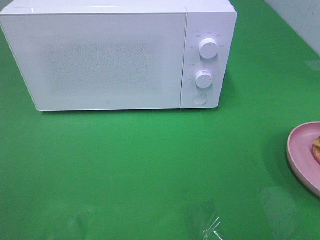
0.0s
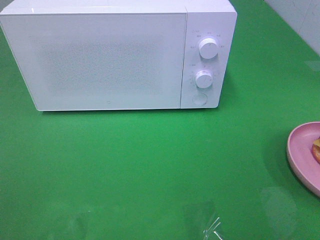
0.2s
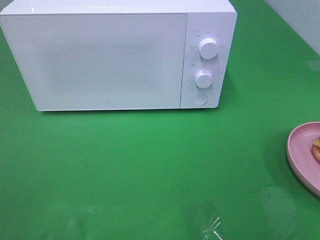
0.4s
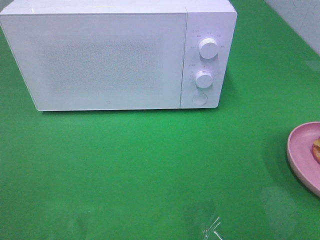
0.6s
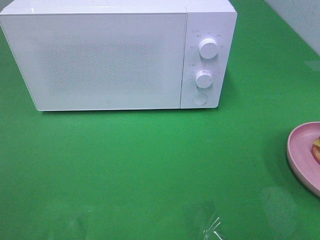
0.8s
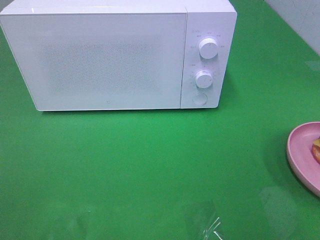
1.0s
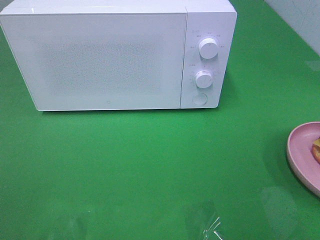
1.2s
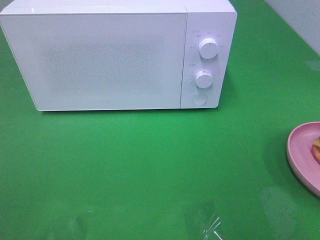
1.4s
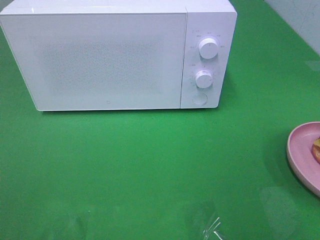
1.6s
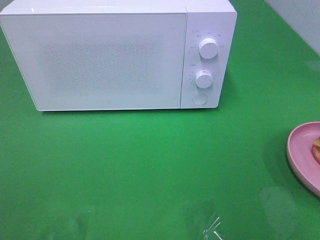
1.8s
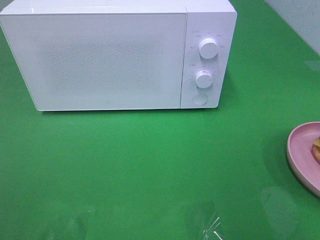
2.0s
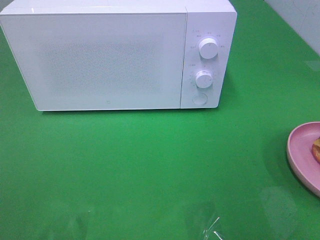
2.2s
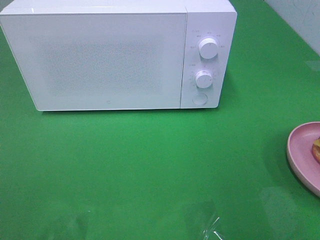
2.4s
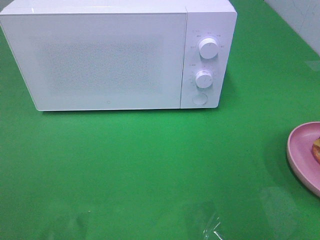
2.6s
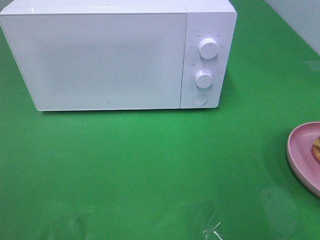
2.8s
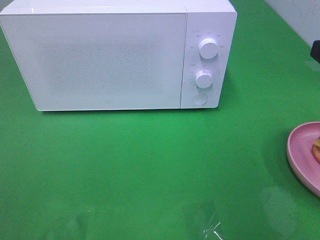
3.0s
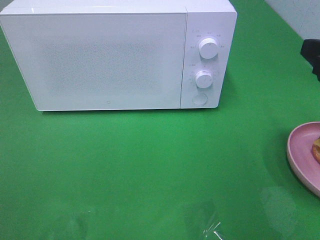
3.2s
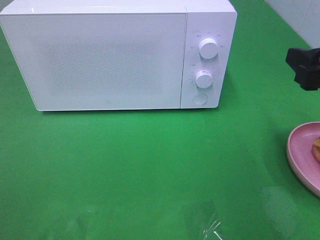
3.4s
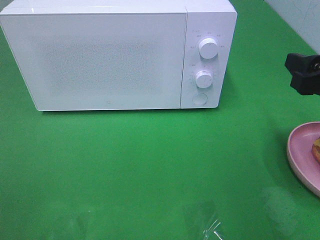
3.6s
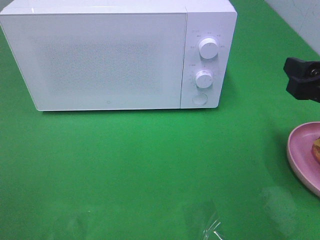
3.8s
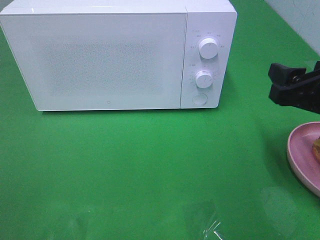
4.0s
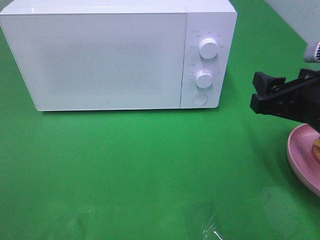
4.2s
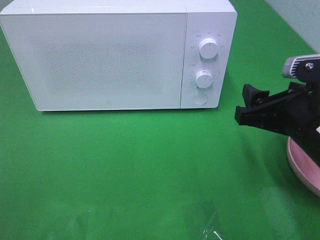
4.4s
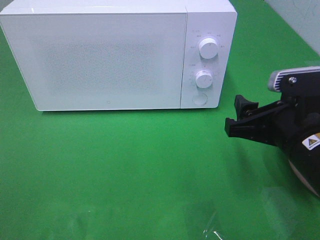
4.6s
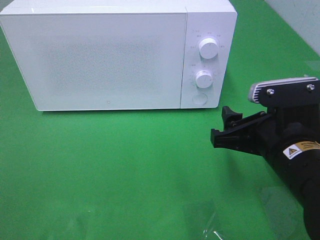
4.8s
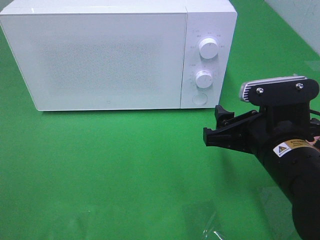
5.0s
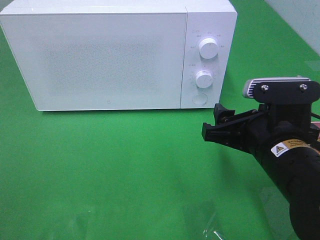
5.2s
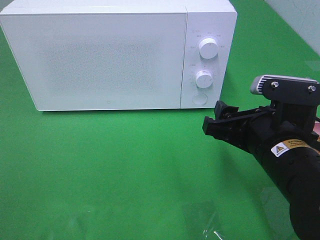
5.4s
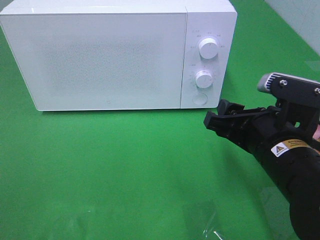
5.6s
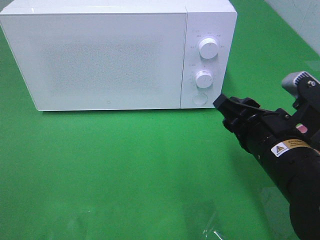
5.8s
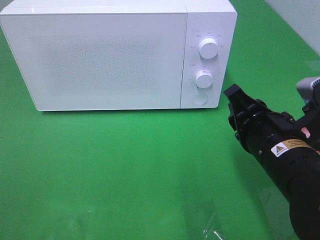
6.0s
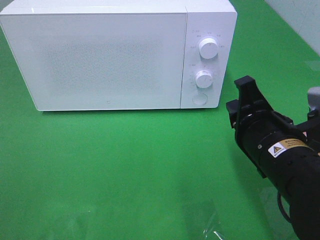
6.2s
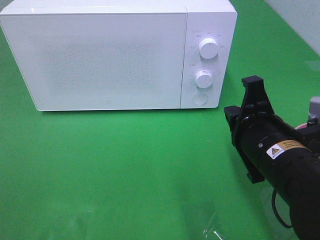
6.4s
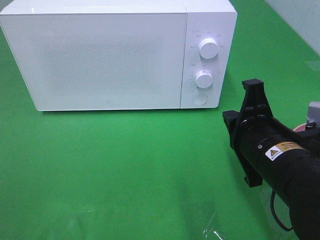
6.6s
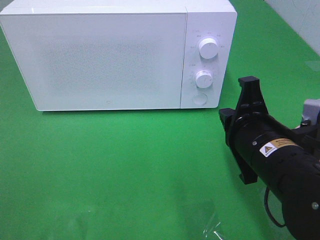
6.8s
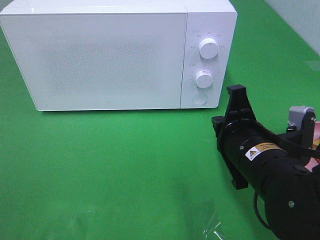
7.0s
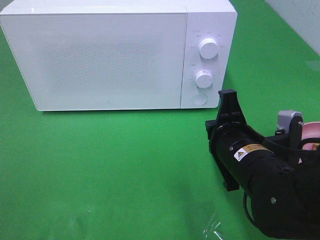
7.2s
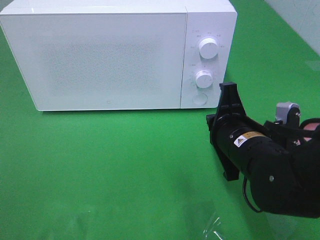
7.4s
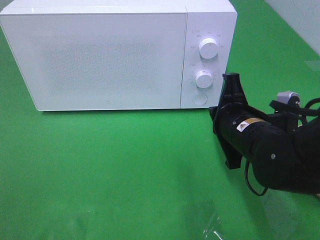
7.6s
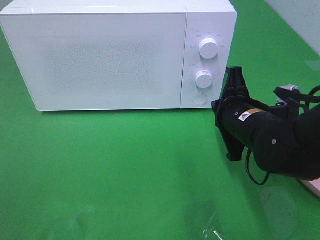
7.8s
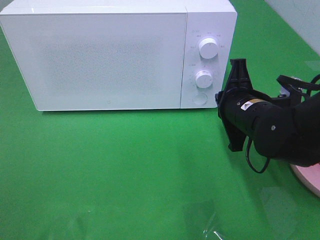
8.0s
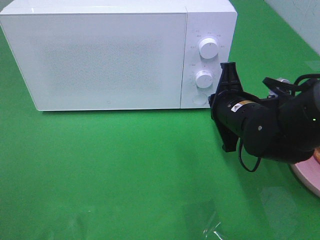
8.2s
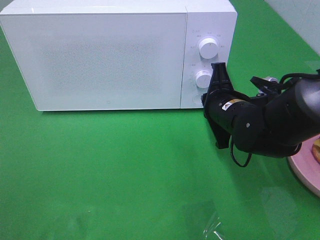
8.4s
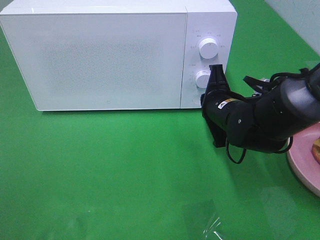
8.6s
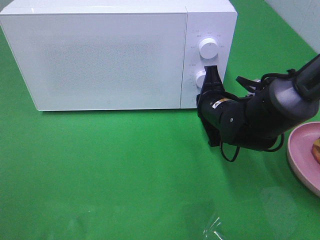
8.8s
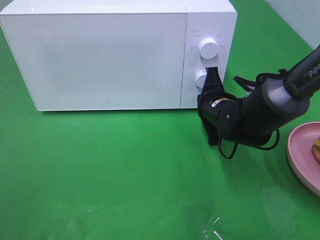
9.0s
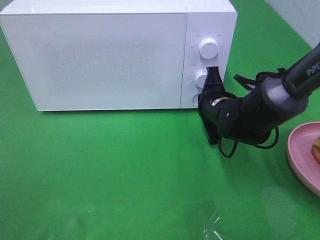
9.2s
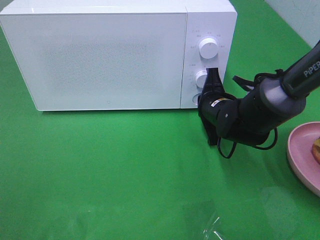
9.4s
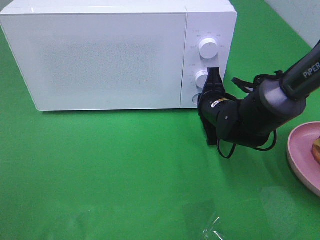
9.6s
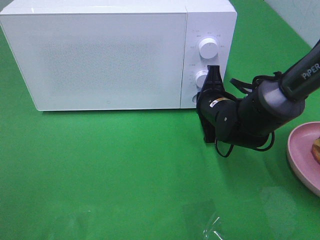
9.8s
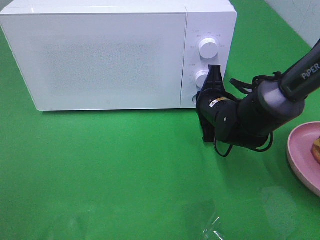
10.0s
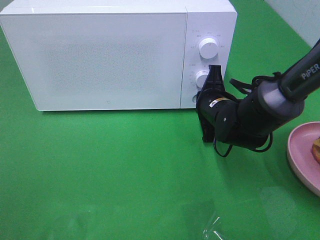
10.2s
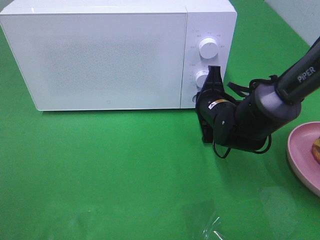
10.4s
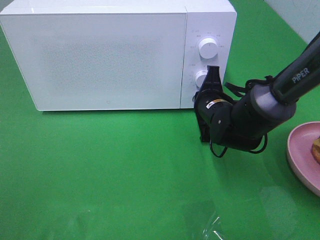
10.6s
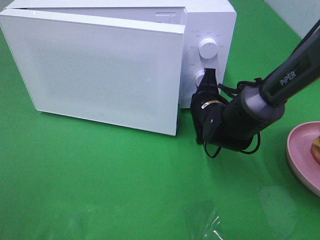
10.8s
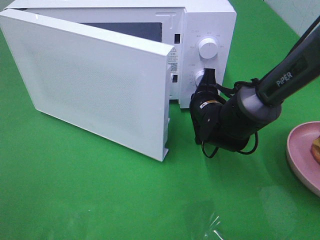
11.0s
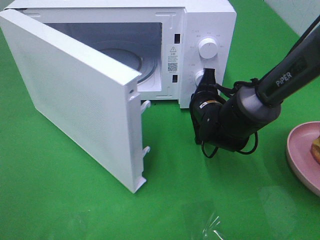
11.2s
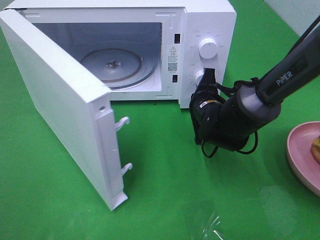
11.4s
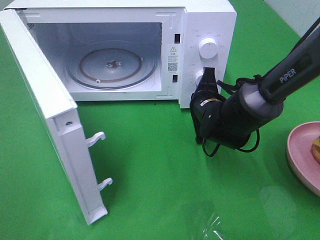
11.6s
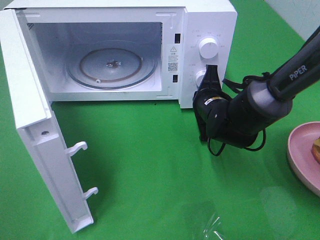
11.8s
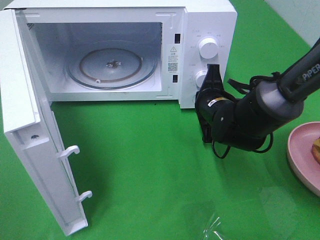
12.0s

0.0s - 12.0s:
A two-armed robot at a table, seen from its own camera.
Task of the whole recording: Heat the burger.
1.6s - 3.0s: The right gripper goes roughly 10 cm forward.
3.0s - 4.4s: The right gripper heads downward and to the left, covering some 10 cm.
4.4s - 6.0s: The right gripper ends up roughly 5 cm from where it was, and closes up.
6.0s - 7.6s: The right gripper travels forward by roughly 5 cm, and closes up.
7.6s - 9.0s: The right gripper is displaced forward by approximately 10 cm.
9.0s - 10.4s: The grippers stay close to where they were, moving slightly.

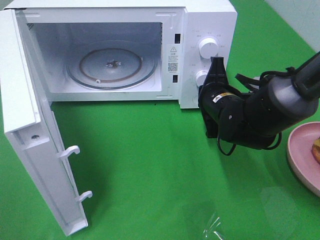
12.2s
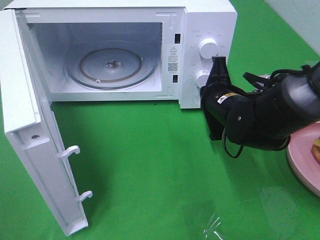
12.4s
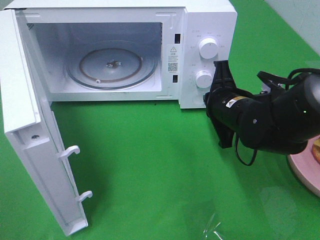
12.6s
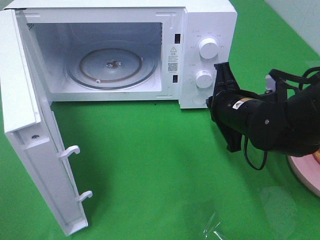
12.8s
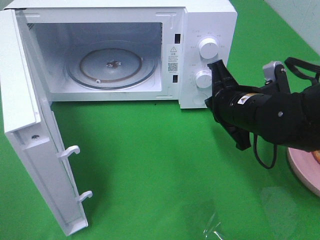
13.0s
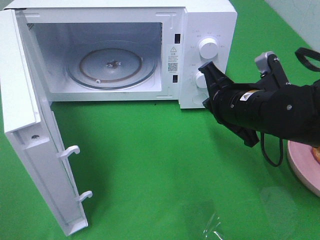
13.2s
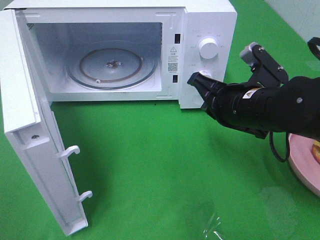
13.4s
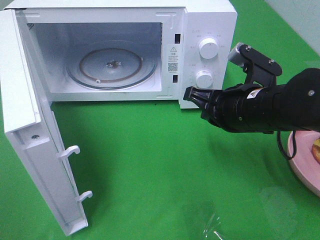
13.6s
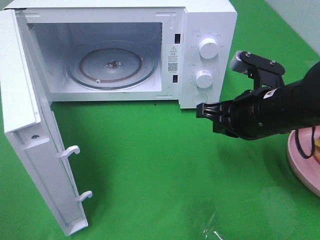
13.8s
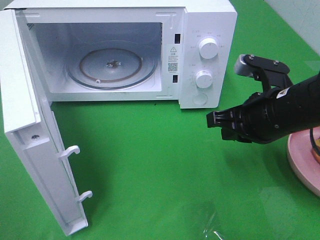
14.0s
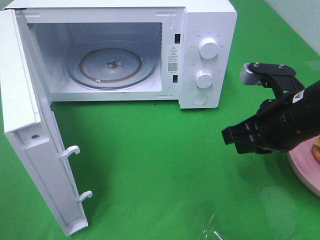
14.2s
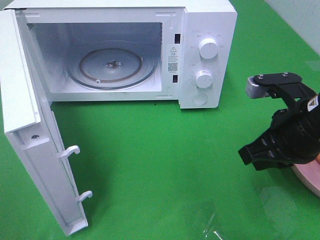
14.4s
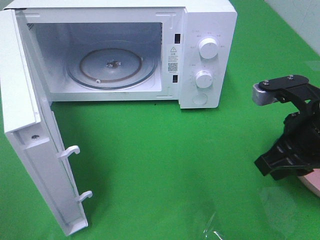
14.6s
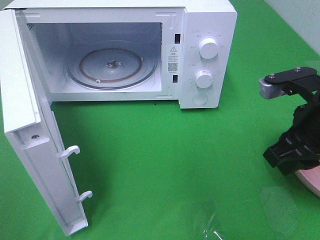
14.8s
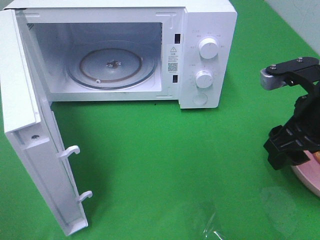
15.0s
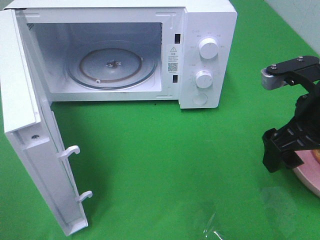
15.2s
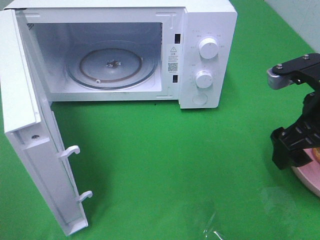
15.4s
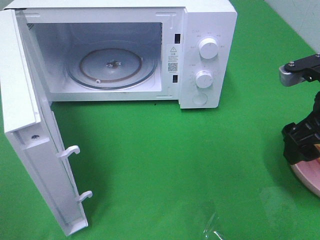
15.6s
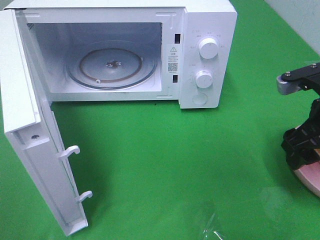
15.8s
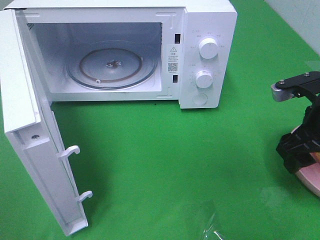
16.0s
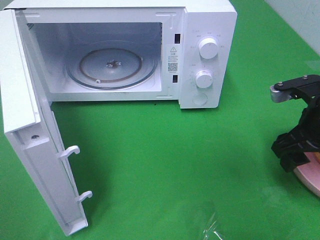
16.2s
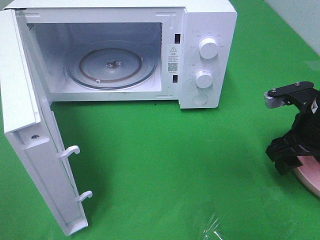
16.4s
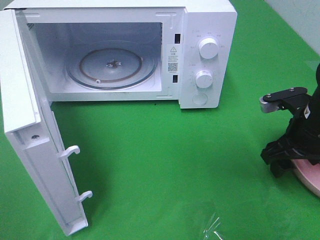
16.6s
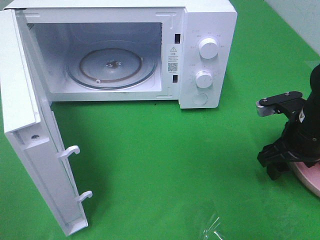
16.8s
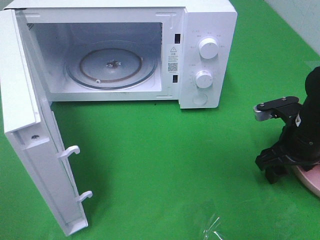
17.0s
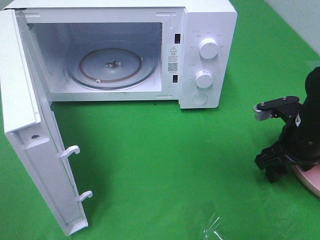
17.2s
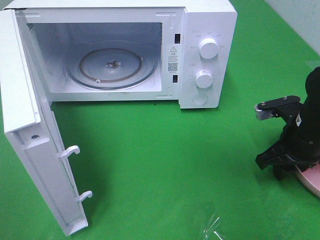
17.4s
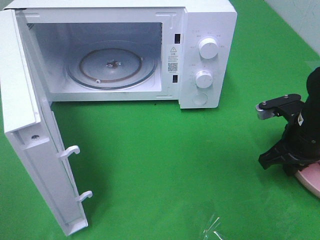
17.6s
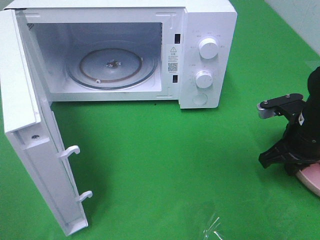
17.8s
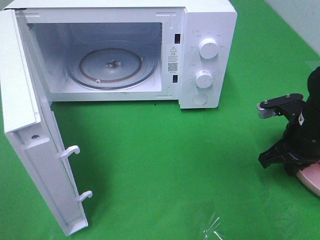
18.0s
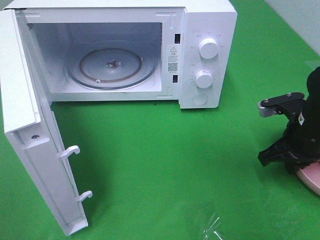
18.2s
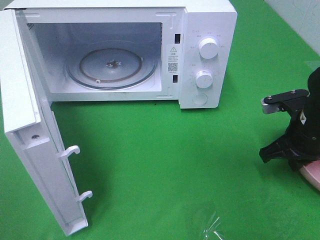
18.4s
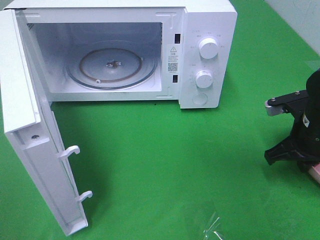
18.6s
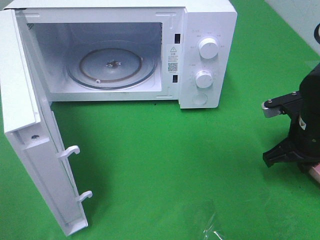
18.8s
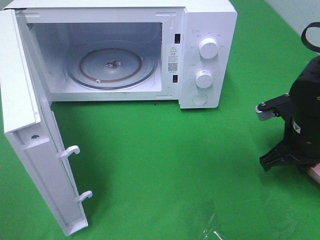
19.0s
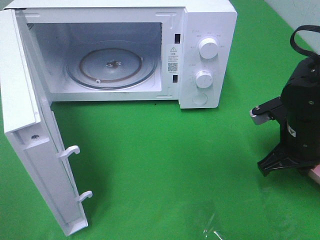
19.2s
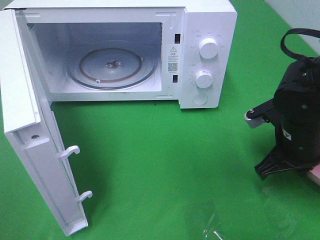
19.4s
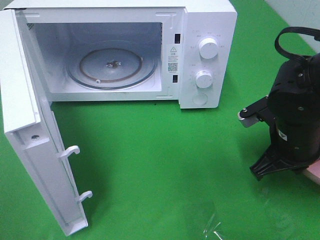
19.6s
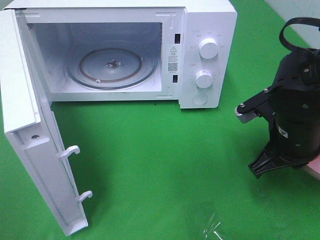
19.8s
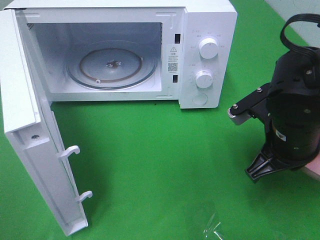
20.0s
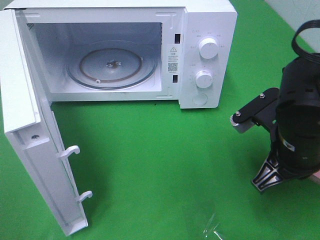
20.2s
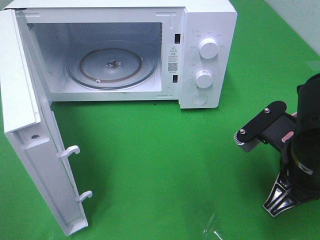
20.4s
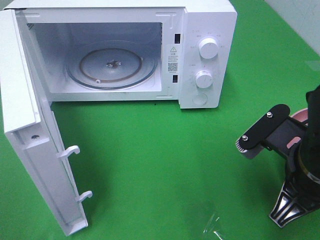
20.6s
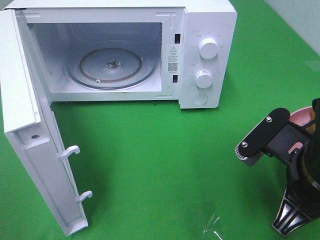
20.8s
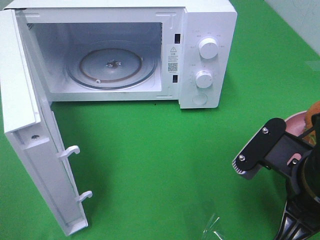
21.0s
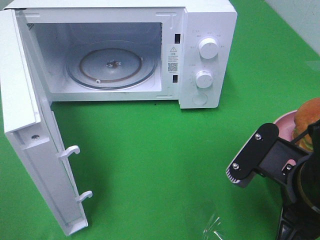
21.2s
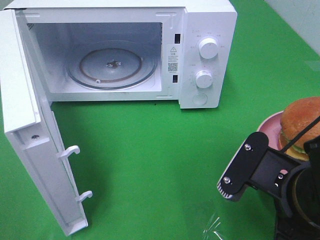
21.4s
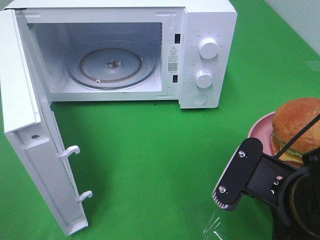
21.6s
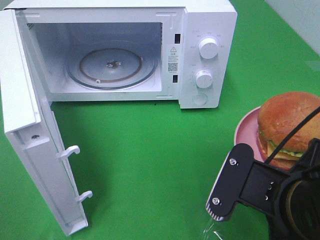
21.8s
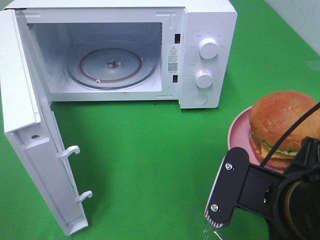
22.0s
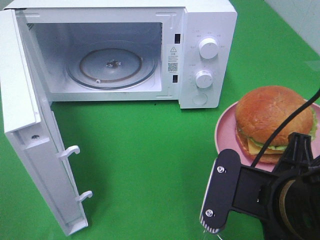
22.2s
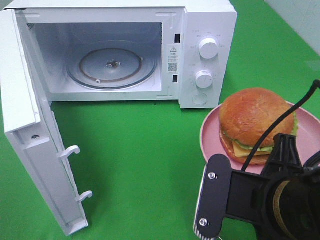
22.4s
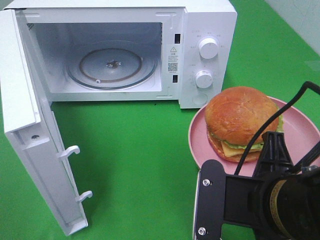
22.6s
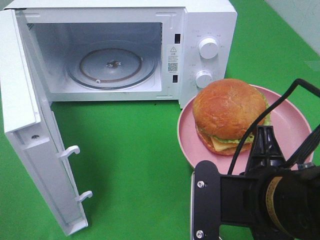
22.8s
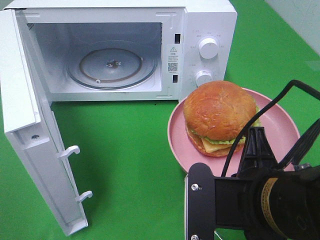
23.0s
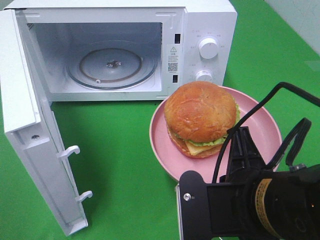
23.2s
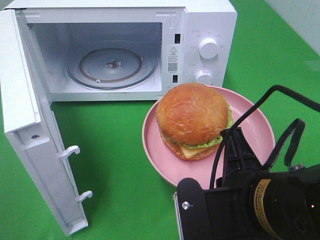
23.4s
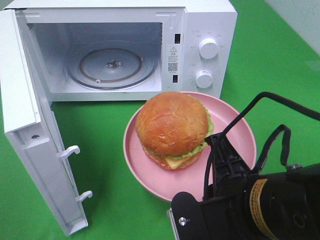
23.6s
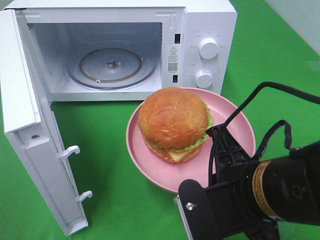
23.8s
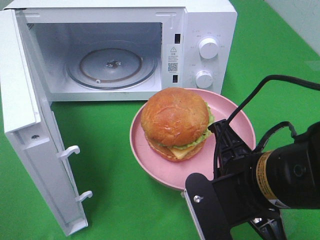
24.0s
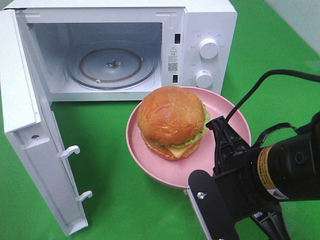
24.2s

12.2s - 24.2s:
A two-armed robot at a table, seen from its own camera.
Task of the whole recording: Heat the burger.
Step, 13.0s - 17.8s: Right hand: grab the plate with the hamburger.
12.2s - 13.8s: The right gripper is displaced backward and upward by some 10 cm.
13.8s - 15.2s: The right gripper moves to the right, some 5 cm, and opens up.
15.2s - 16.6s: The right gripper moves downward, approximately 10 cm.
16.6s - 18.2s: The right gripper closes up.
18.2s - 19.8s: The right gripper heads to the left, covering roughly 5 cm.
19.8s - 21.2s: The right gripper heads backward, covering approximately 10 cm.
